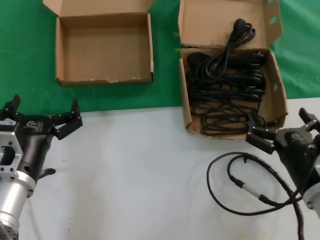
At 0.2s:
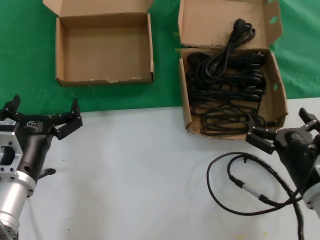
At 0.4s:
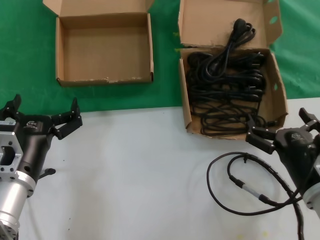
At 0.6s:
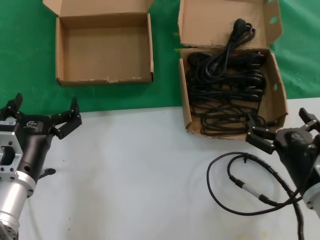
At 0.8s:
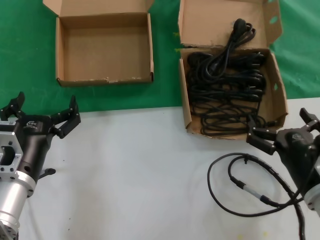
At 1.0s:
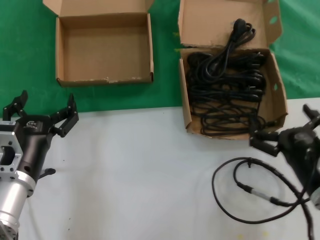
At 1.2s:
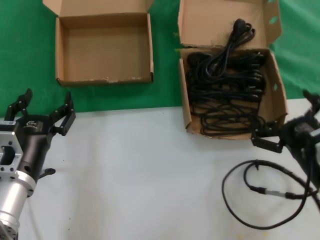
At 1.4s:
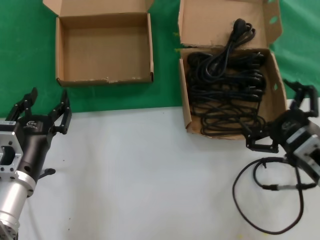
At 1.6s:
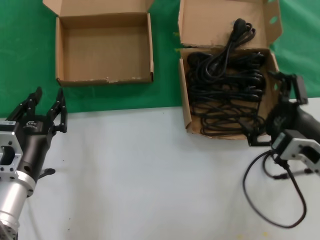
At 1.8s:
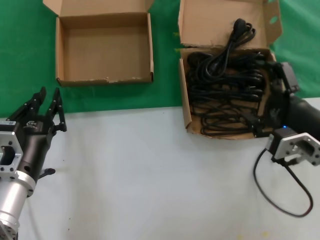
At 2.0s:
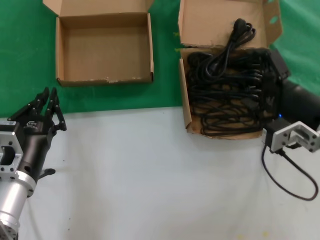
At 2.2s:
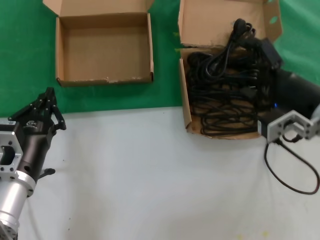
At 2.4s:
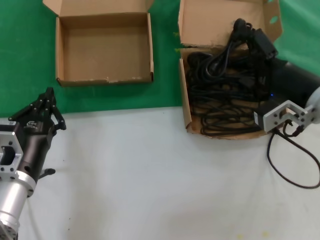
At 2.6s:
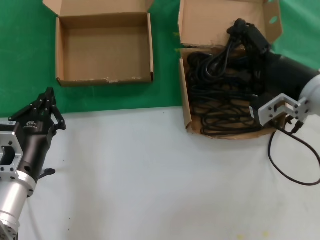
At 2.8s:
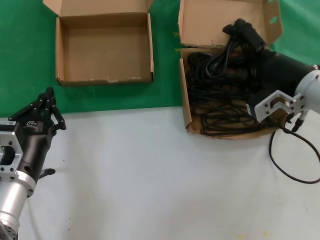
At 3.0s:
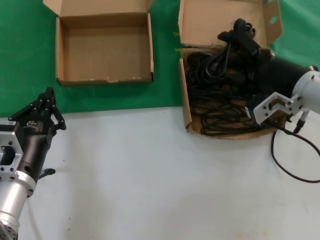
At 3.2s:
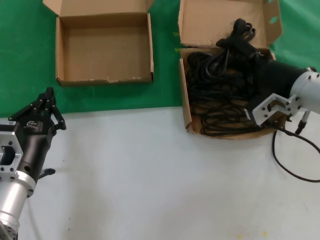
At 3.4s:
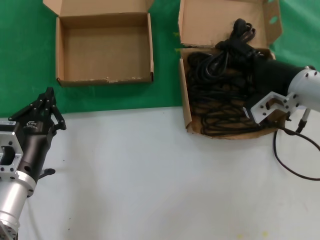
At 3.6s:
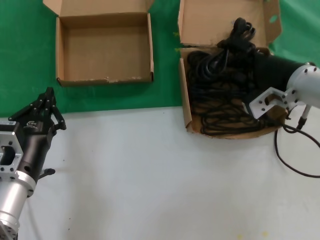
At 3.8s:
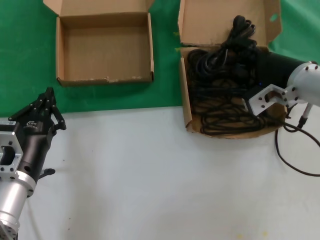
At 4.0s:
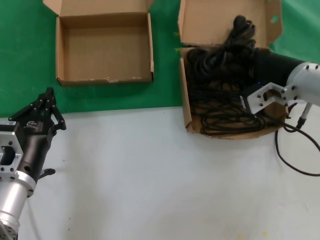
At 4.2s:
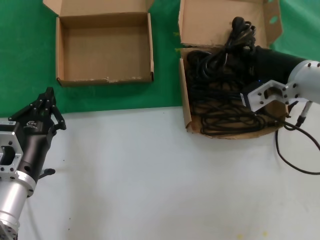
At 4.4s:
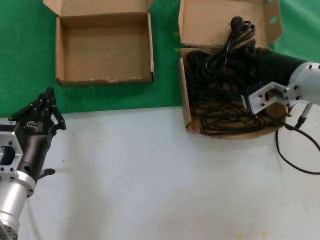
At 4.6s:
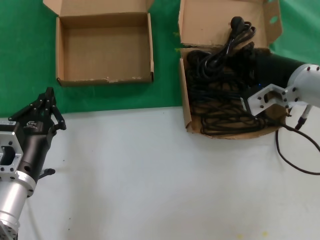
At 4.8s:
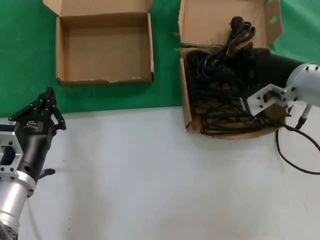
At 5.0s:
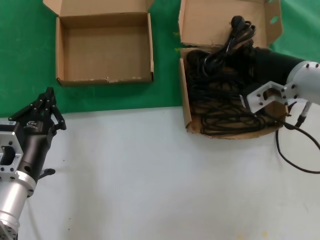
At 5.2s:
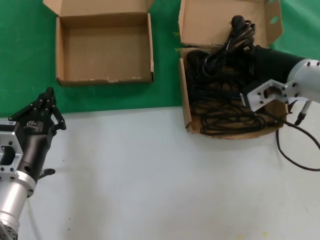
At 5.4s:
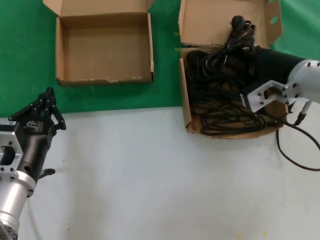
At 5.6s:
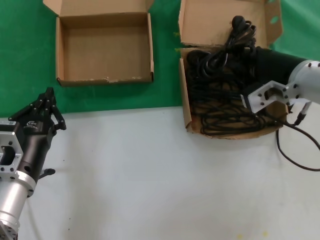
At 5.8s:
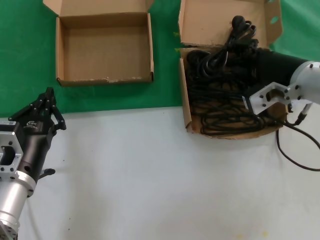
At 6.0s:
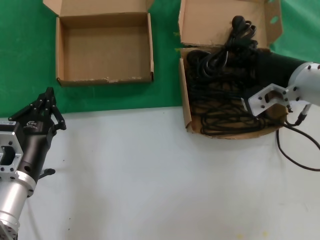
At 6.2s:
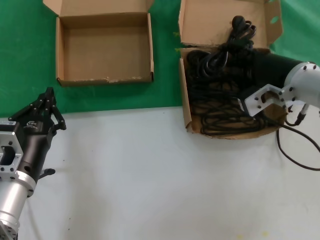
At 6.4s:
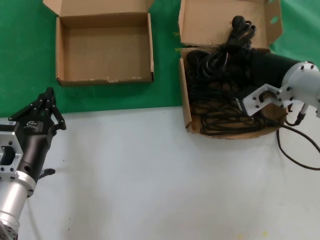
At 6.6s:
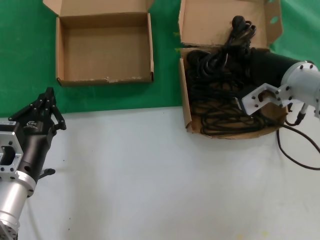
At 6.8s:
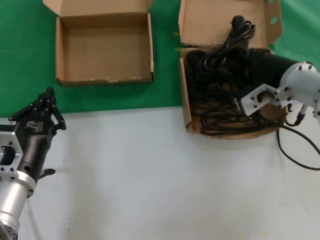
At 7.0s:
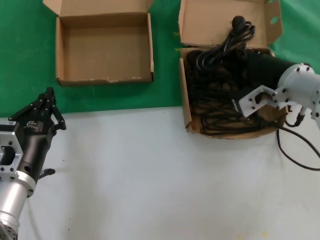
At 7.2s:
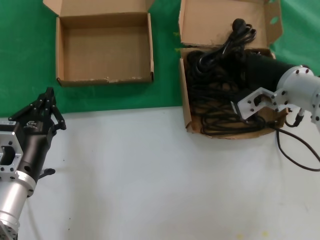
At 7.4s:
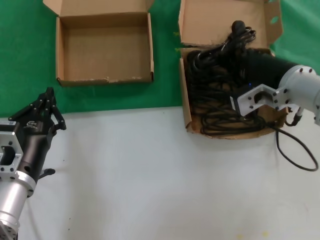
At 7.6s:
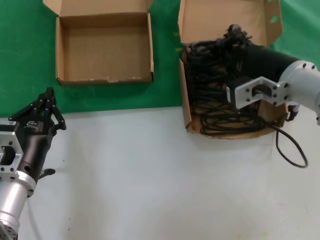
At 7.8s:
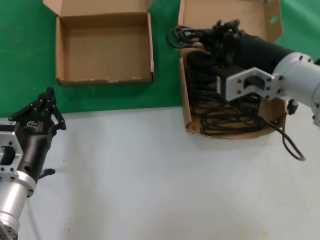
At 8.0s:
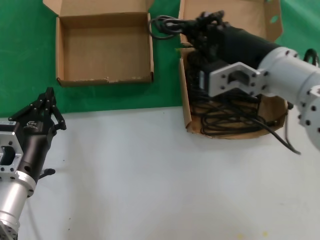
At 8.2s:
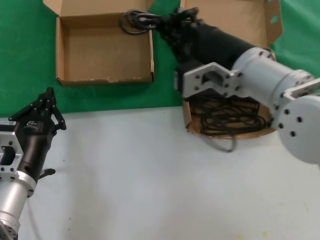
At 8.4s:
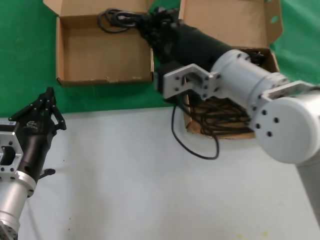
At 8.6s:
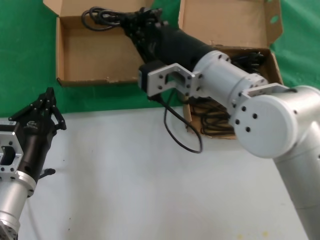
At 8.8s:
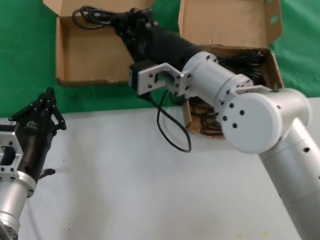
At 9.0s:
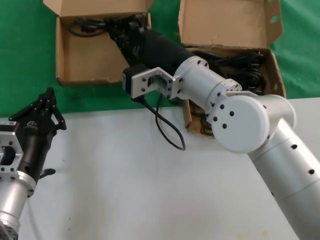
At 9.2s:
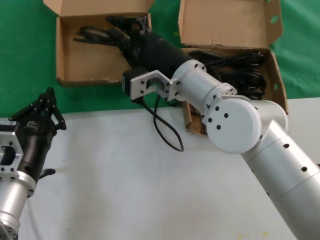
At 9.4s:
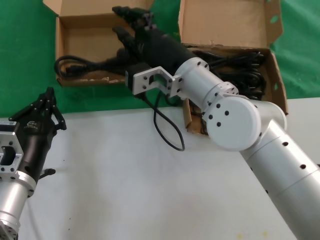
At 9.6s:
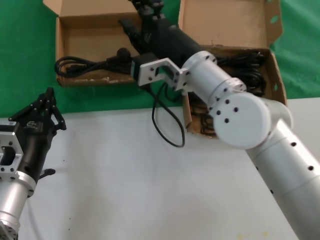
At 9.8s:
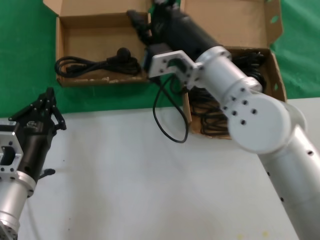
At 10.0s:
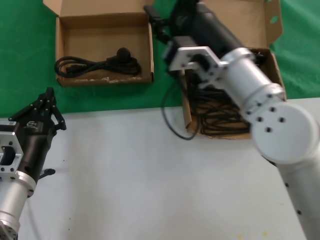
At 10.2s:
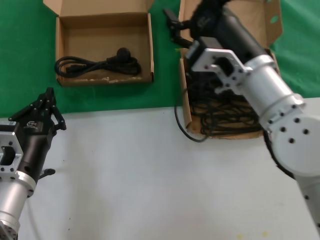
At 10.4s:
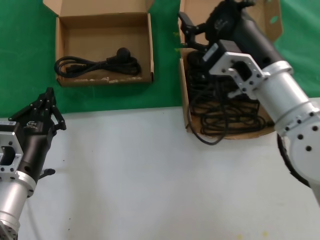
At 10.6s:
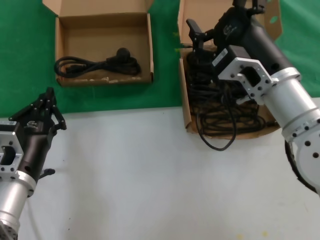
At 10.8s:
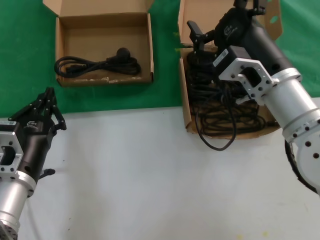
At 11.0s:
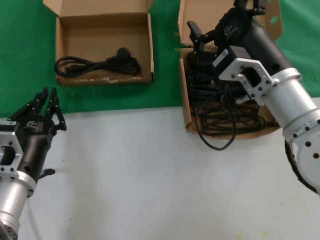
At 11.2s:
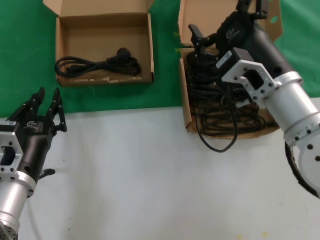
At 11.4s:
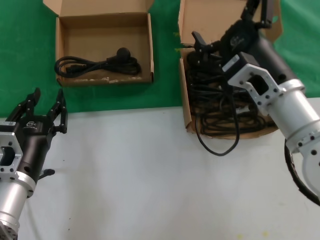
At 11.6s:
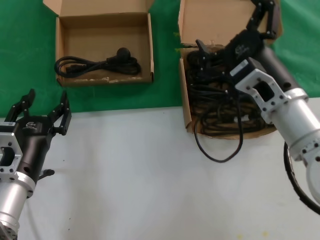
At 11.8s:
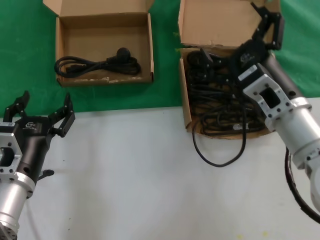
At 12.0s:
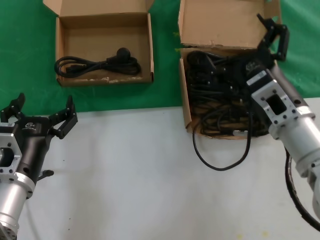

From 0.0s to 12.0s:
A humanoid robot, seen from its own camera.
Task of the whole recording: take the parts from the box containing them and put them into an empty box.
Step, from 0.0s to 7.0s: Grasp the data cable.
Step, from 7.2s to 9.4s: Place the data cable in the another box.
From 0.0s to 1.6s: The right hand goes roughly 5 cm upward.
From 1.6s to 3.0s: The right hand heads forward and upward, covering approximately 15 cm.
From 3.0s to 4.4s: The hands stay close to where they were, moving slightly.
From 4.4s to 6.0s: Both hands stay put.
From 6.0s to 7.6s: The hands stay close to where they were, moving slightly.
From 7.6s to 9.0s: The right hand goes some 15 cm to the left.
From 9.0s to 10.4s: The right hand is displaced to the right by roughly 10 cm.
From 10.4s to 12.0s: The right hand moves downward, about 5 cm.

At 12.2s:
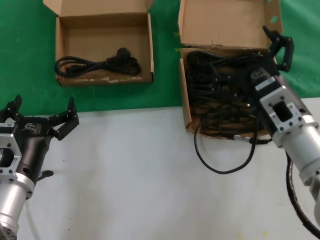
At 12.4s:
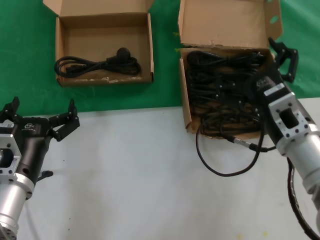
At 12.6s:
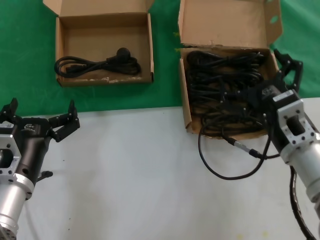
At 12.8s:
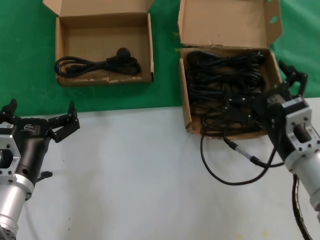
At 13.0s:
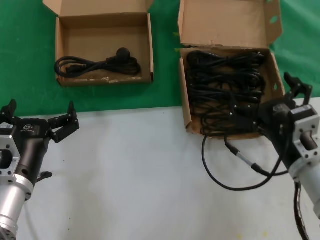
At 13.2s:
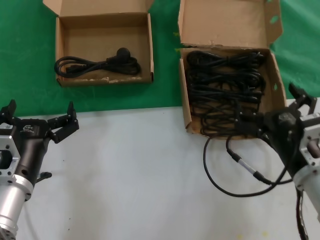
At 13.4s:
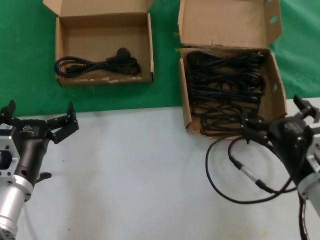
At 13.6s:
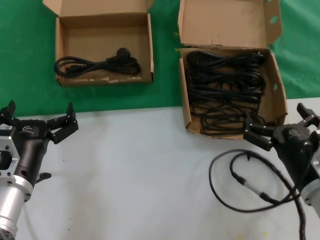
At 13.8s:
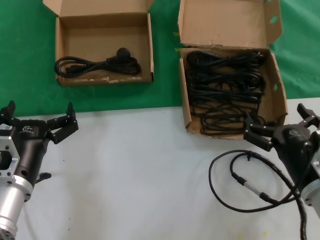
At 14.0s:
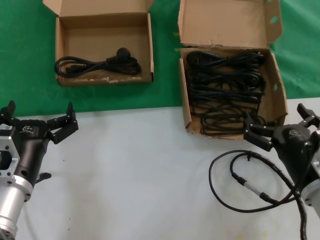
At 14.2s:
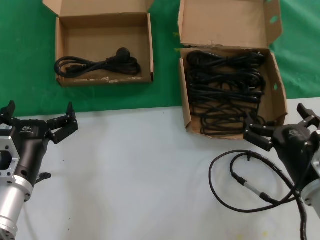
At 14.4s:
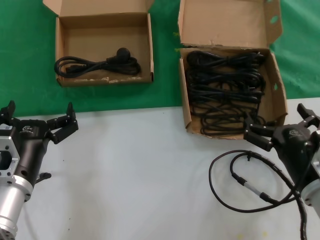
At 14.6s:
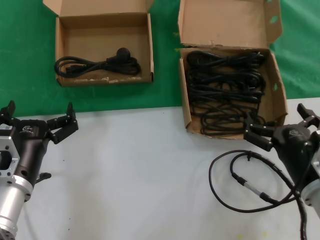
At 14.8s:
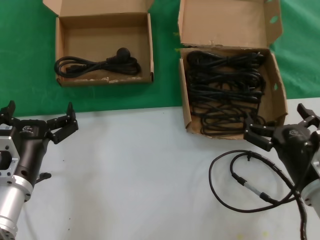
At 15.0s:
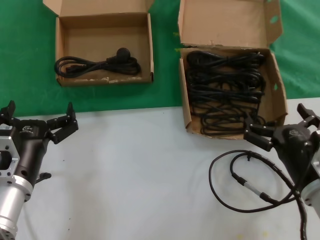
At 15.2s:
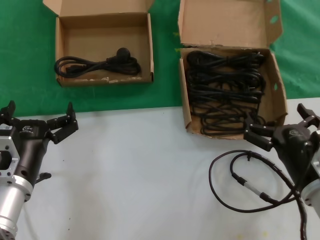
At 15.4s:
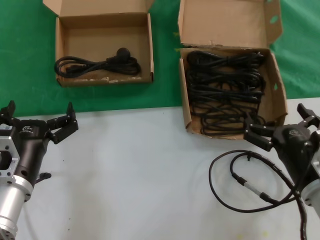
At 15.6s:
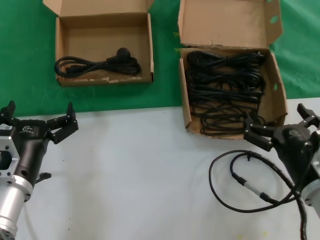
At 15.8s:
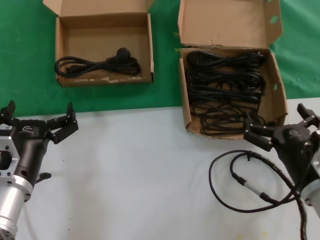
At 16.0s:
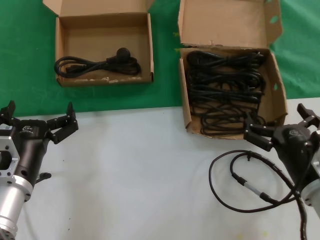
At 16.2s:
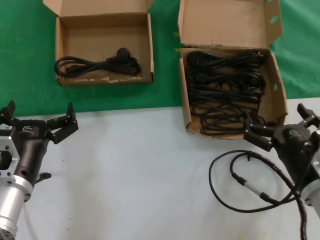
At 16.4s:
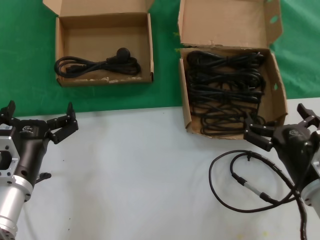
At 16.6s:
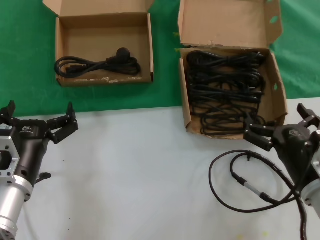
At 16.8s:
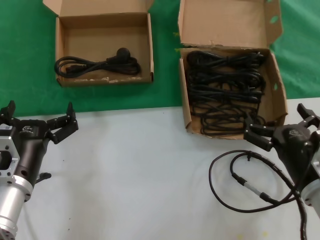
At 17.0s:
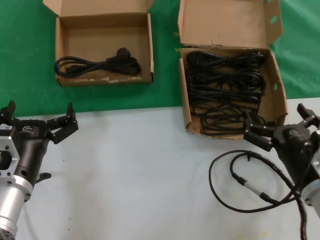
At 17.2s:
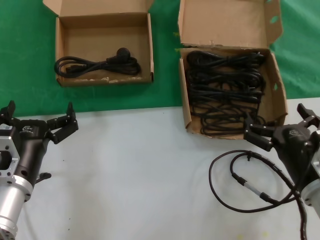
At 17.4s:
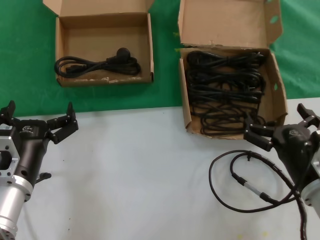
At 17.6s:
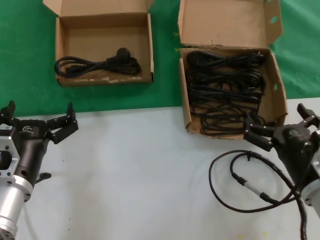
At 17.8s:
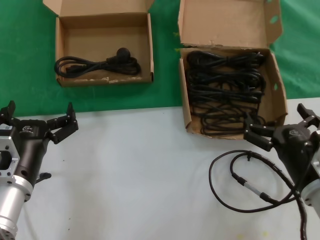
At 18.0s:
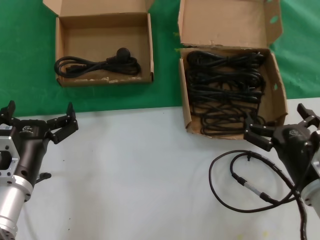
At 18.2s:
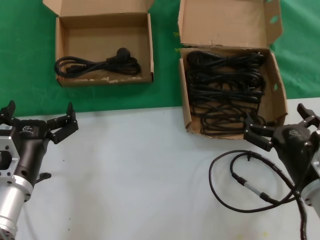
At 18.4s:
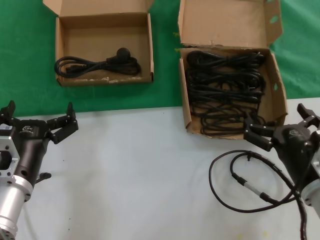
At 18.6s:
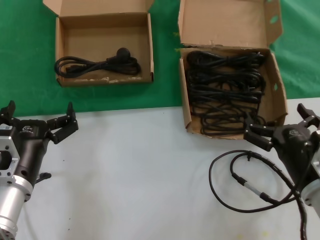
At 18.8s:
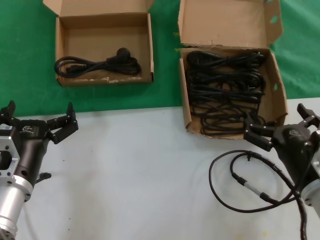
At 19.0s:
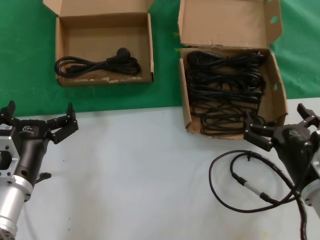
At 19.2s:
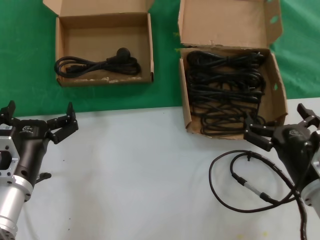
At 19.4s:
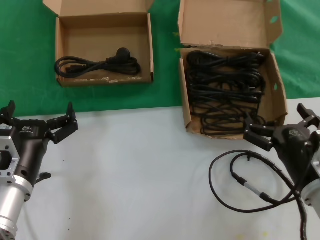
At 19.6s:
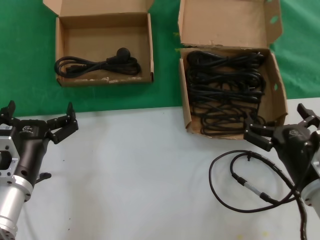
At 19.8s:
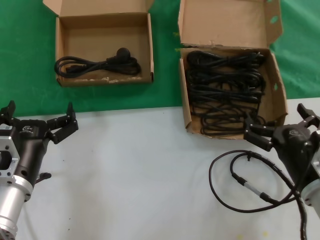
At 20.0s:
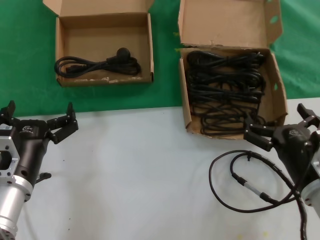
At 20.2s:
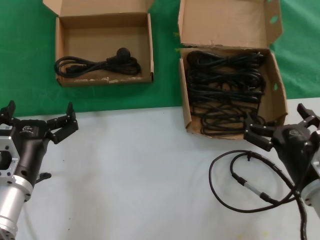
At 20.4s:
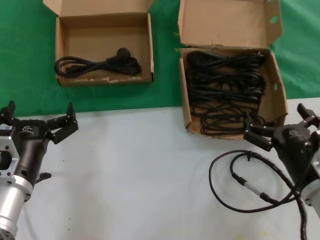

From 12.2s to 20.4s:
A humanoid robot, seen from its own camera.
Task of the whole recording: take the parts from the box containing them and put them into an empty box.
From 12.2s to 13.8s: The right hand travels downward and backward by about 10 cm.
From 13.8s to 20.4s: Neither hand changes place.

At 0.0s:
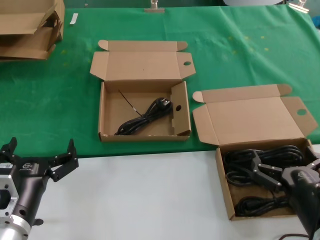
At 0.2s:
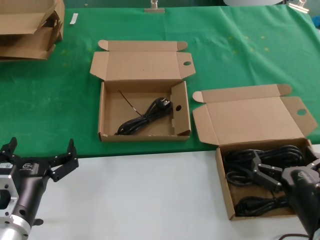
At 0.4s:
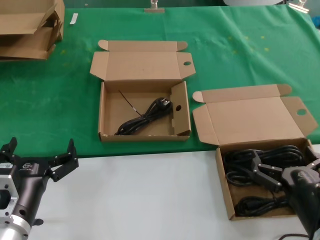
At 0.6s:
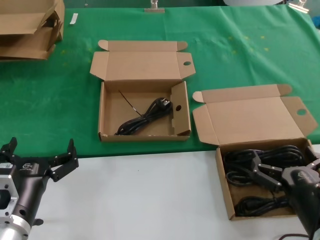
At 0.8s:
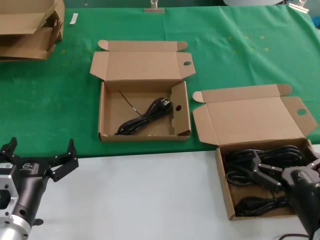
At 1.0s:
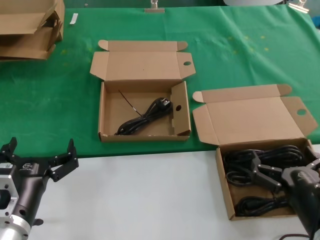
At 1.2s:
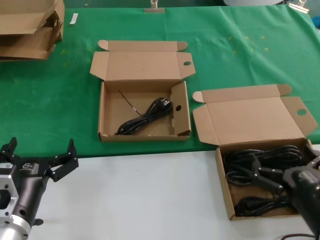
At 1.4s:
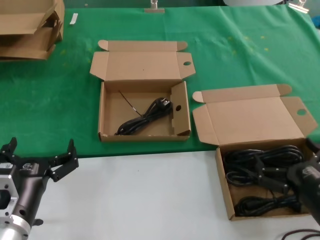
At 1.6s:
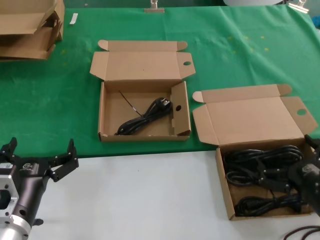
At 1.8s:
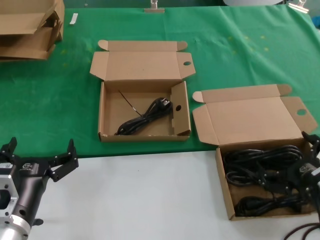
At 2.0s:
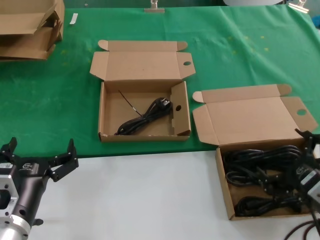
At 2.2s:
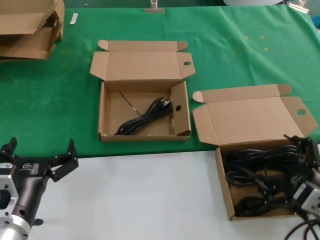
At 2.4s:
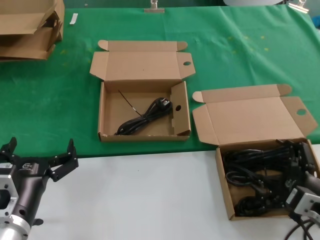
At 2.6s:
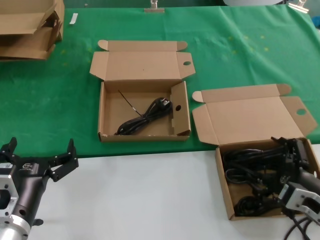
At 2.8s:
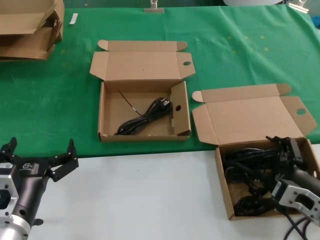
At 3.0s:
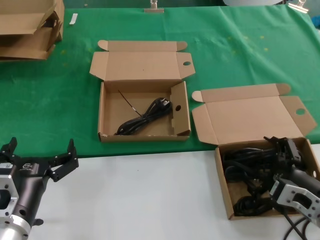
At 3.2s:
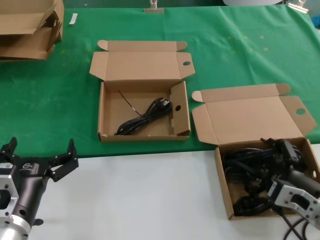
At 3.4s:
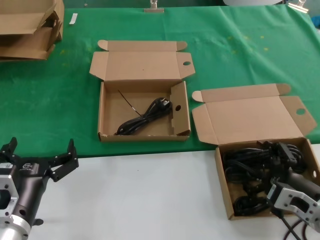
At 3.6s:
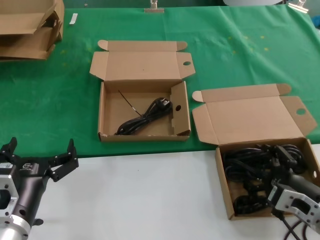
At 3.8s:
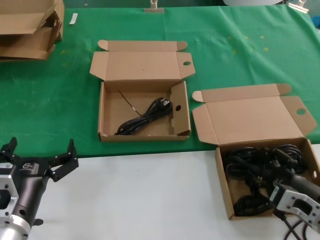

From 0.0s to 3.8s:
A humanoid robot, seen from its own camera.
Task of the whole recording: take the parts from the box containing them and put them into an empty box.
Step, from 0.0s to 3.8s: Grasp the data cable.
From 0.0s to 1.2s: Both hands stay about where they are.
From 1.2s to 2.6s: The right hand is displaced forward by approximately 5 cm.
From 2.6s to 3.8s: There are only small adjustments of the hands.
